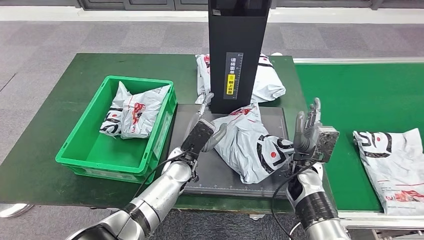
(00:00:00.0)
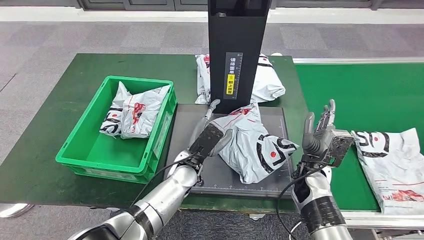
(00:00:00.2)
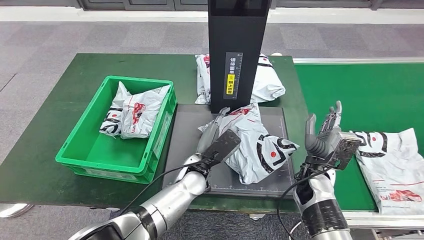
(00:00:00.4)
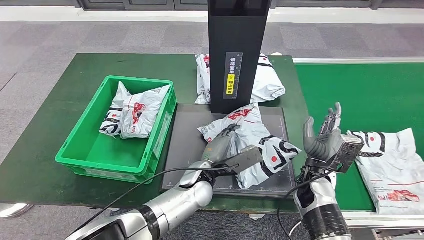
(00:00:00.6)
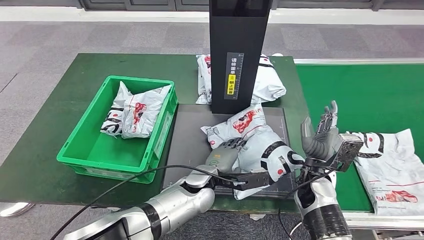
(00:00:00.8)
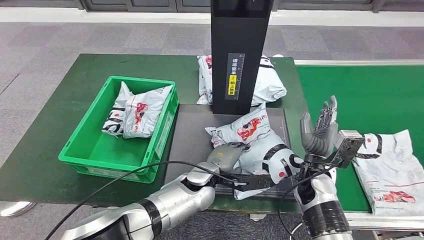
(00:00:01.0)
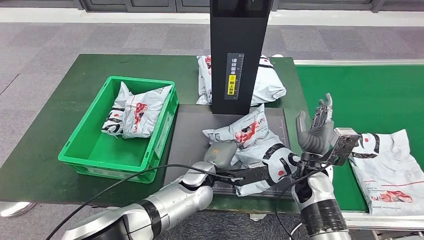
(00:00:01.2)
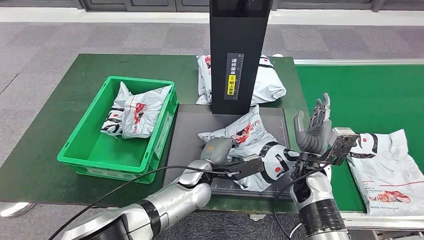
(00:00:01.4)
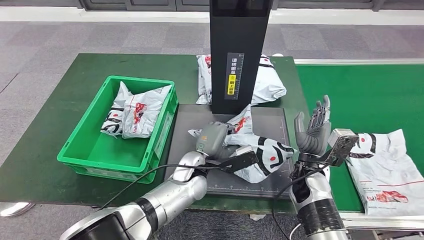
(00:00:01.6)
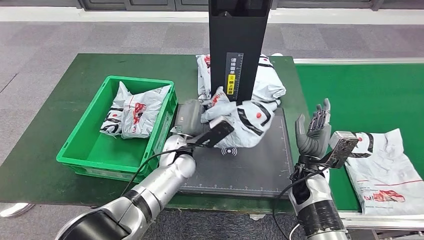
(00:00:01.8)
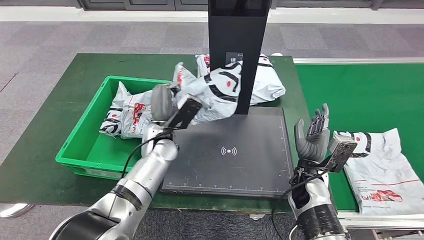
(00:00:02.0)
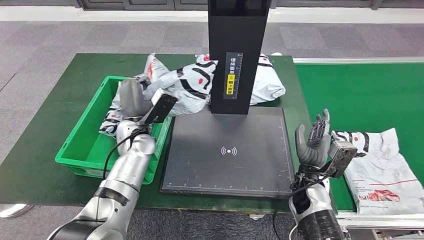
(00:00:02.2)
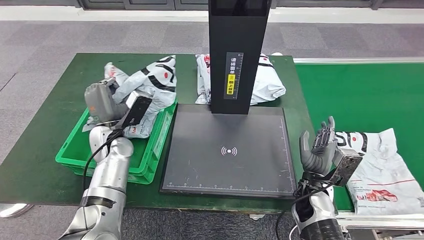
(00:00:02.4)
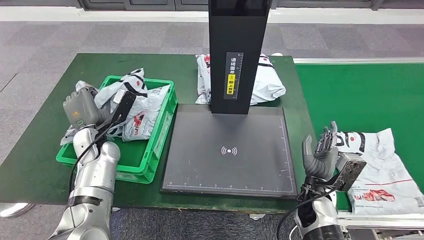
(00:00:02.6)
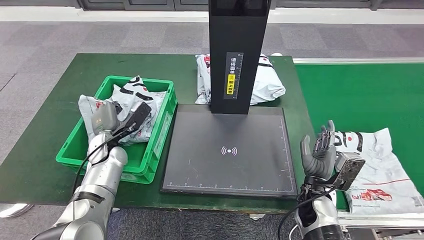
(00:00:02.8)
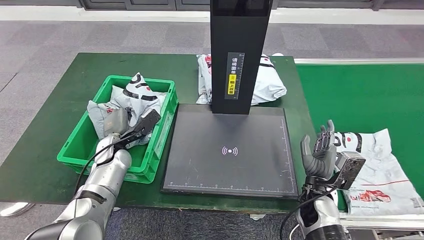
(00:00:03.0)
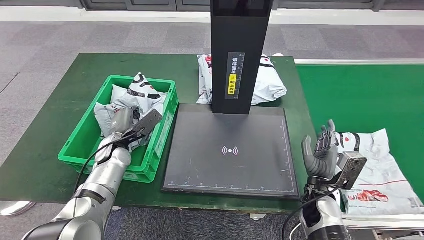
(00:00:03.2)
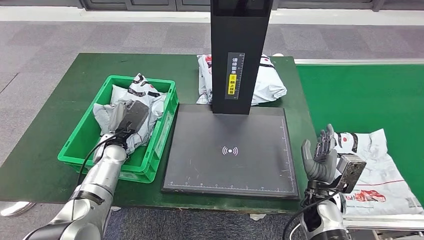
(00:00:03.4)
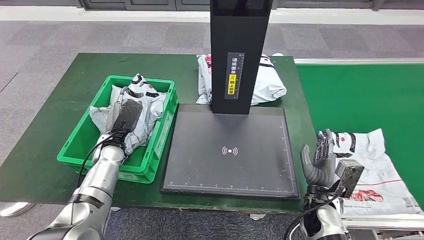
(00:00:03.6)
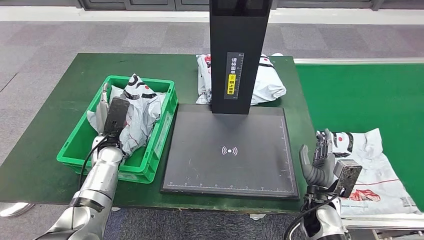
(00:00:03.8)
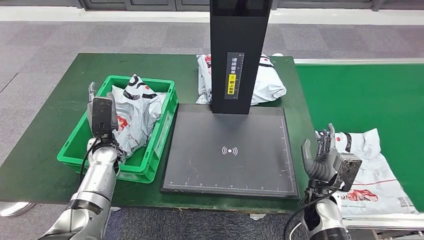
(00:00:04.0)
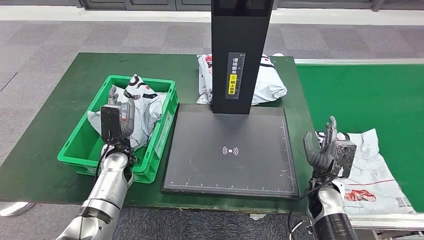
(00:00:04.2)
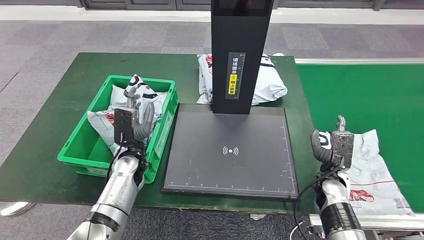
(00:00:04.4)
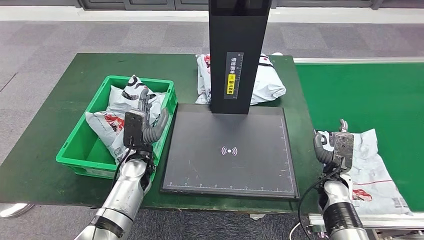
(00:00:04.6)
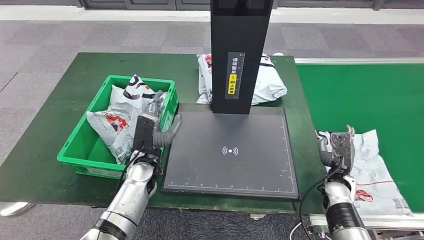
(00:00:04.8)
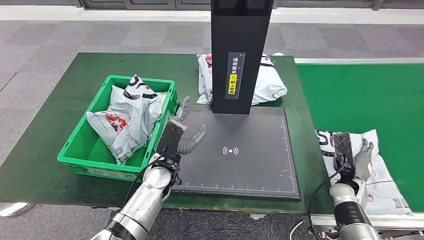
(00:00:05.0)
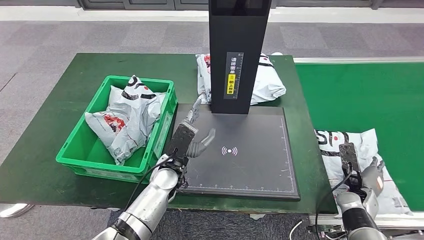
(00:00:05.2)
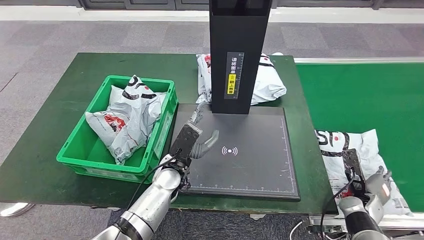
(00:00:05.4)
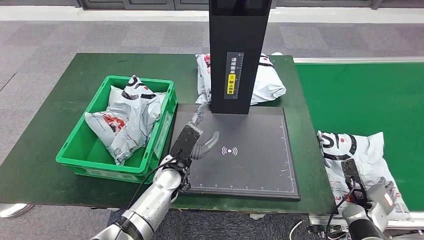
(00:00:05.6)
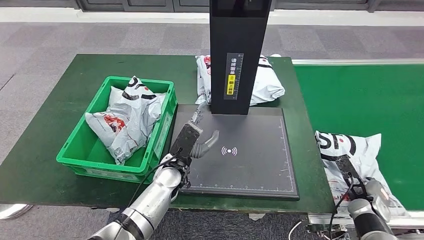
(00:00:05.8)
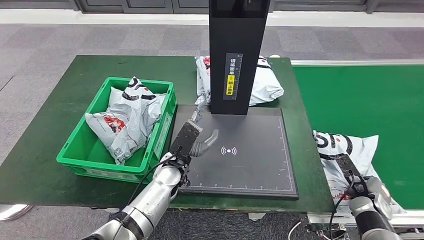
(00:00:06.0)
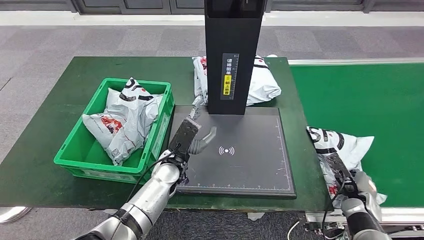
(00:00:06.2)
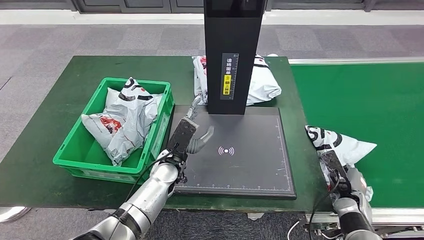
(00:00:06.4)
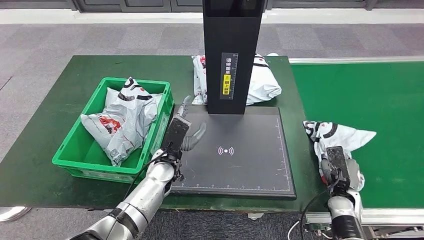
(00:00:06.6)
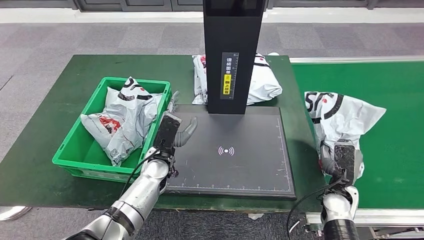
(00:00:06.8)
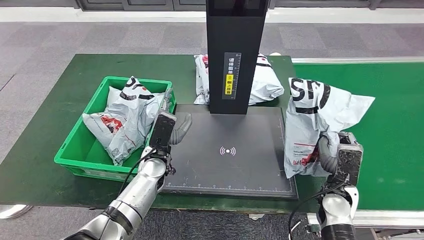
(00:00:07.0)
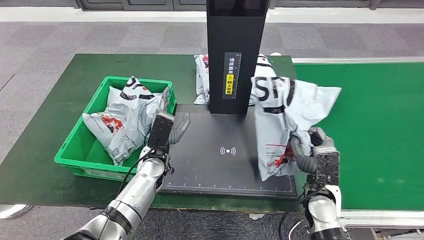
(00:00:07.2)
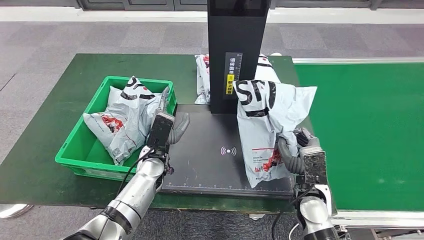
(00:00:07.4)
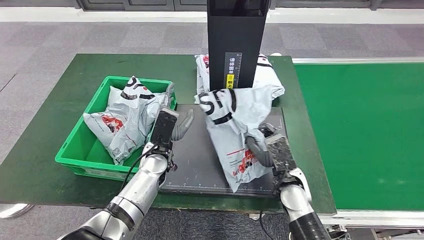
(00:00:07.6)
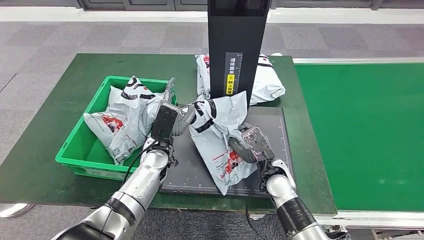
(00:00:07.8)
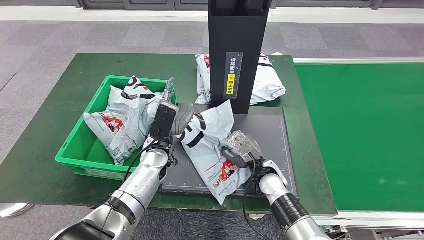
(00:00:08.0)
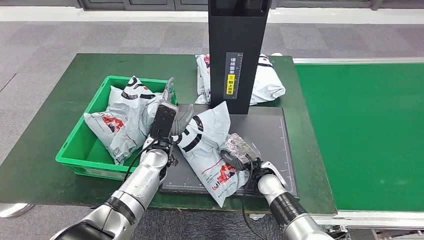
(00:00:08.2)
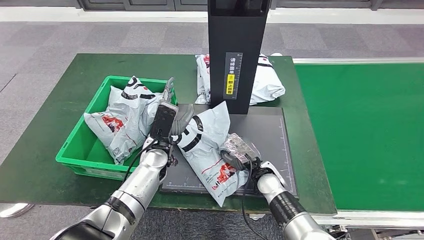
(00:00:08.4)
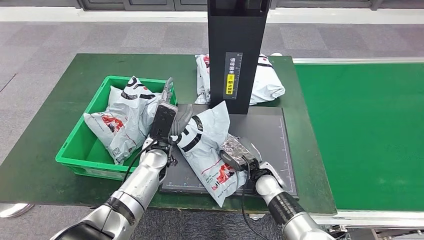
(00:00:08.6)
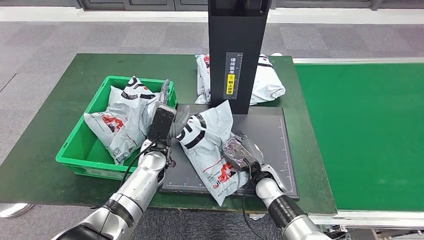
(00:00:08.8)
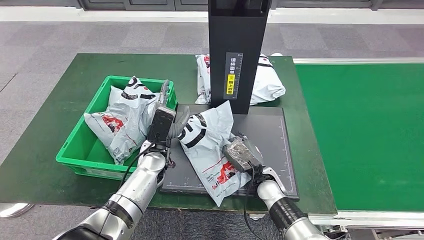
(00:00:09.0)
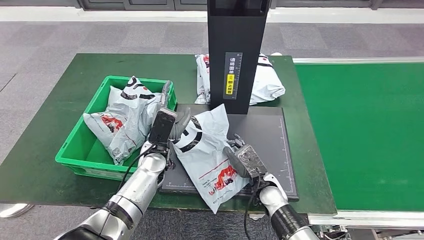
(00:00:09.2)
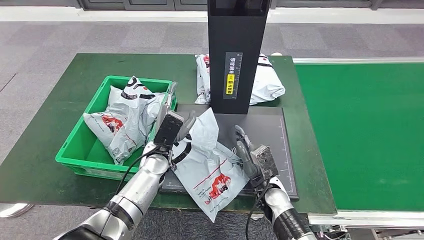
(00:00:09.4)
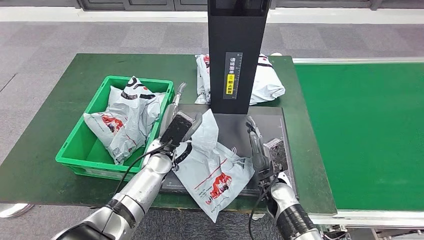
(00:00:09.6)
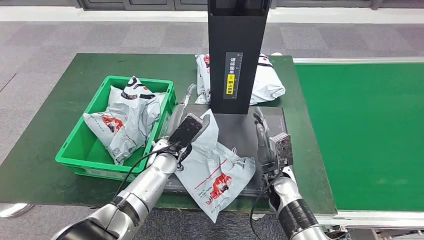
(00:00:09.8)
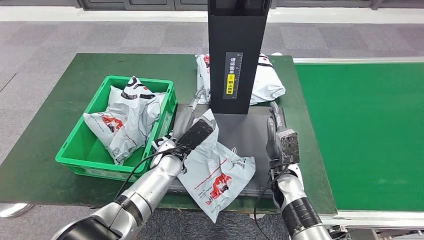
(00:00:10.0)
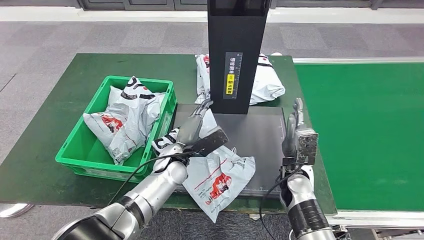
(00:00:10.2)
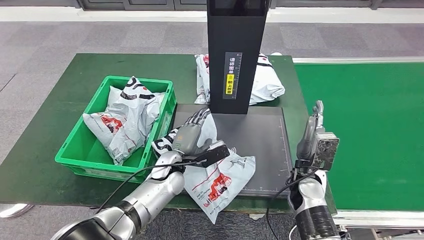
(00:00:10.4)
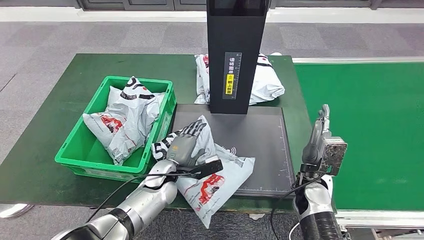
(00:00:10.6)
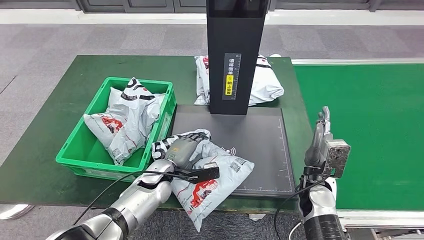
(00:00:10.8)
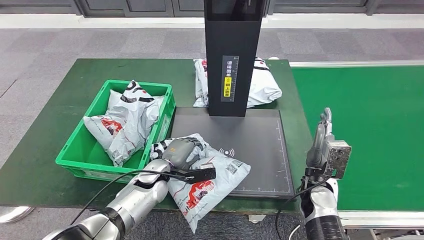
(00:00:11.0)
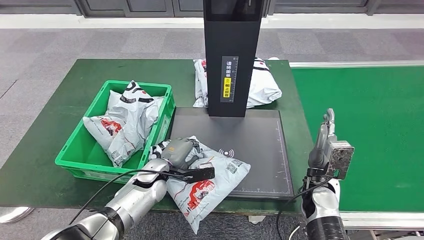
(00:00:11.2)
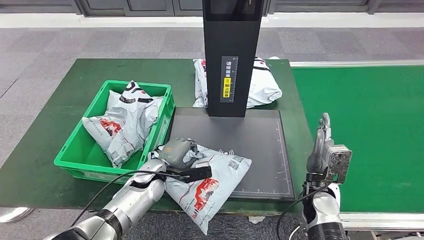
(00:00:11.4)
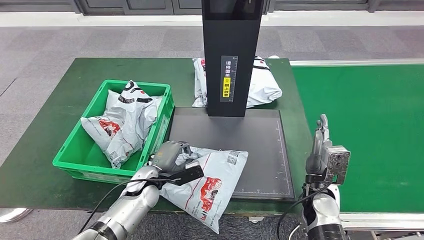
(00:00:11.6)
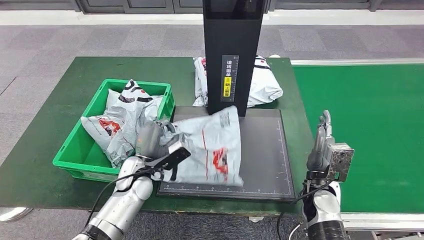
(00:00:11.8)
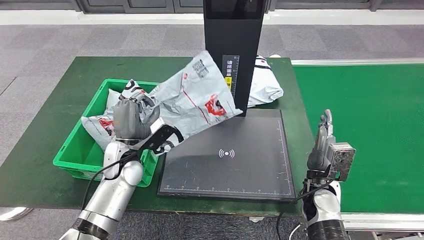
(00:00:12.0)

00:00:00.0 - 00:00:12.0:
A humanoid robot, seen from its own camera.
Step, 00:00:00.0 - 00:00:02.2: Pick up the parcel from the inbound machine.
Step, 00:00:02.6 - 00:00:04.4: Place the parcel into the delivery box.
Step, 00:00:04.6 - 00:00:07.0: Pick up the parcel from the conveyor belt.
Step, 00:00:07.2 - 00:00:09.6: Place the parcel onto the inbound machine.
00:00:03.0 - 00:00:04.4: Both hands travel together to the right, about 5 cm.
00:00:07.6 - 00:00:09.0: The right hand goes some 5 cm downward.
00:00:09.0 - 00:00:10.4: The right hand shifts roughly 10 cm to the right.

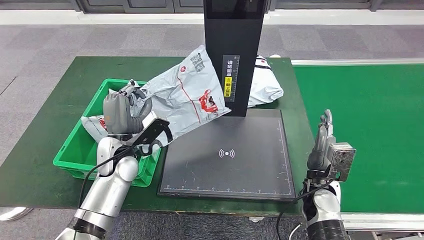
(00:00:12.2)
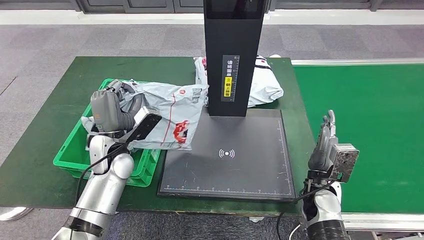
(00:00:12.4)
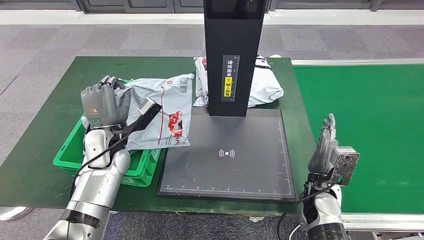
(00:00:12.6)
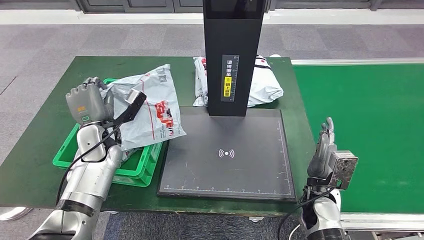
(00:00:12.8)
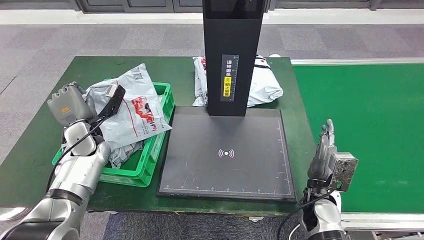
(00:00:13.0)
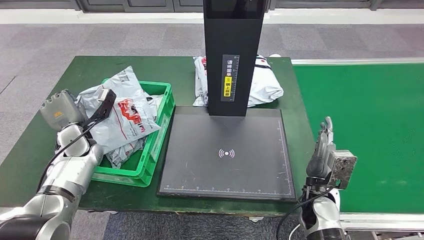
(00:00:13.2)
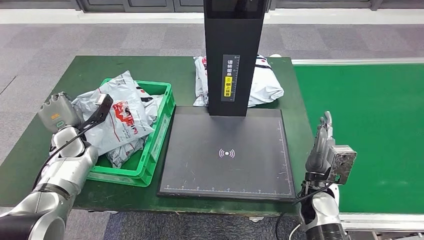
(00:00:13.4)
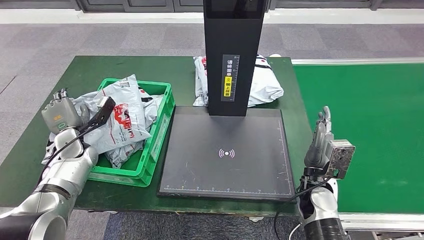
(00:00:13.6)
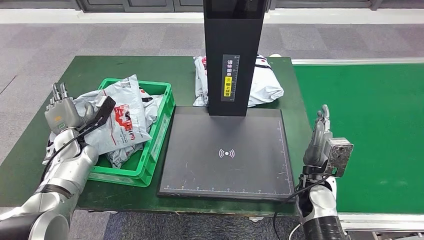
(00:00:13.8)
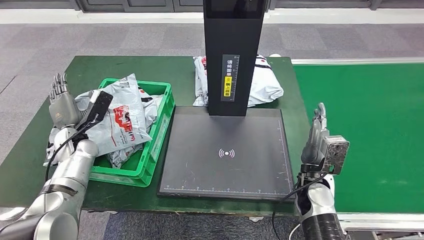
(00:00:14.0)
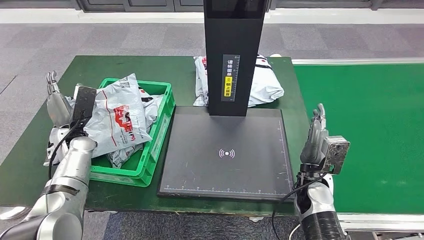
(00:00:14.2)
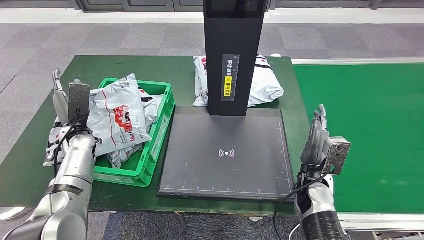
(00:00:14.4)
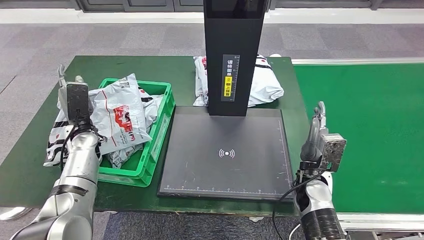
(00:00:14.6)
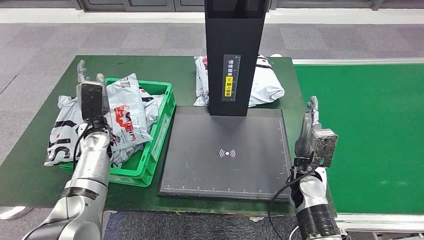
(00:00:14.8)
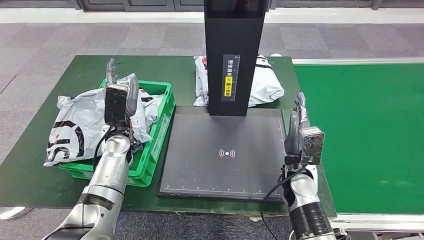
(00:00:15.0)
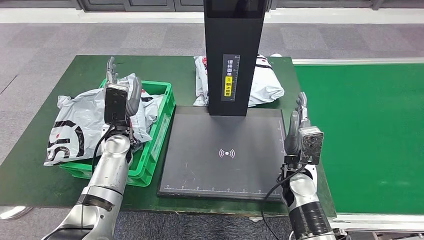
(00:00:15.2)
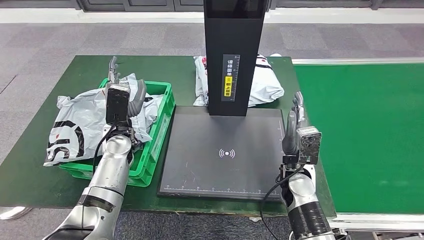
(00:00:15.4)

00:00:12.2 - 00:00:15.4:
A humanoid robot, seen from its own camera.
Step, 00:00:12.4 - 00:00:15.4: Place the parcel into the delivery box.
00:00:13.8 - 00:00:15.4: The left hand heads to the right, covering about 15 cm; the right hand changes place by approximately 5 cm.
